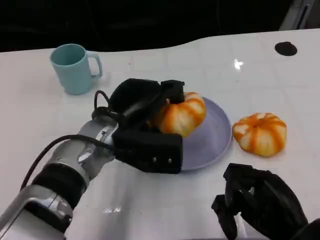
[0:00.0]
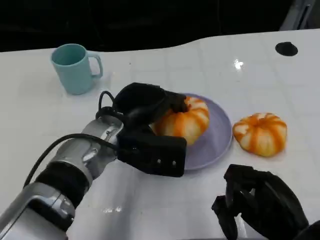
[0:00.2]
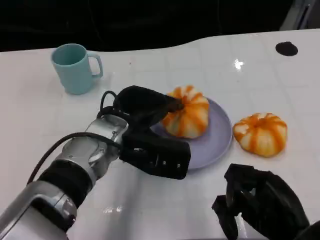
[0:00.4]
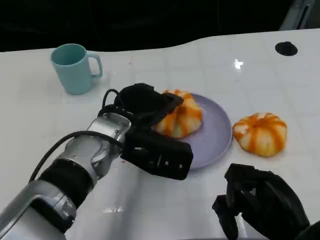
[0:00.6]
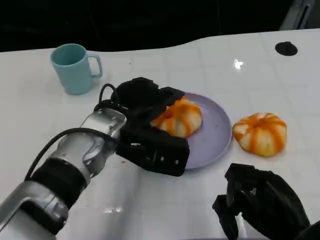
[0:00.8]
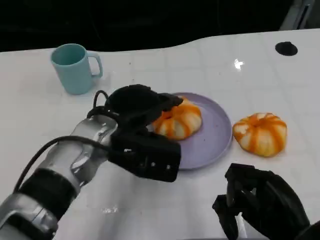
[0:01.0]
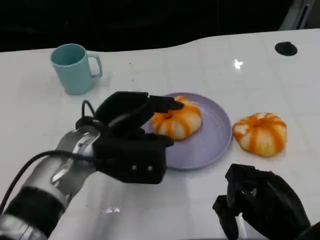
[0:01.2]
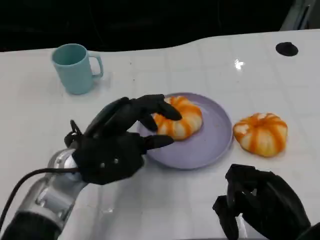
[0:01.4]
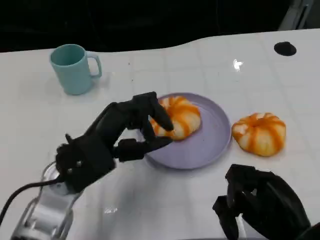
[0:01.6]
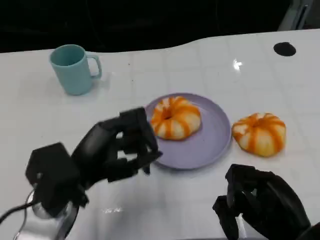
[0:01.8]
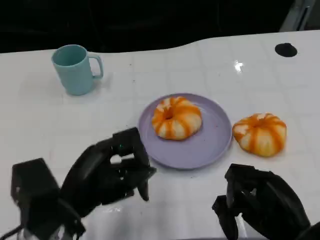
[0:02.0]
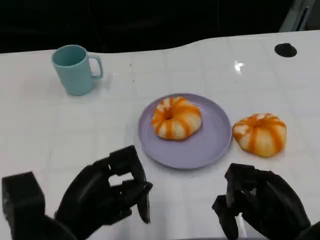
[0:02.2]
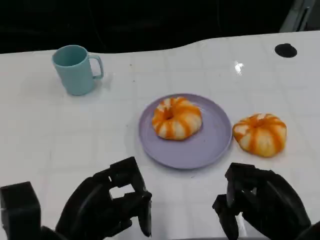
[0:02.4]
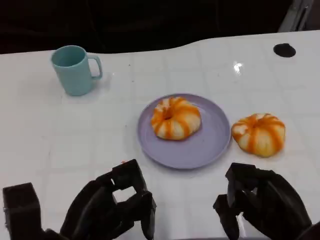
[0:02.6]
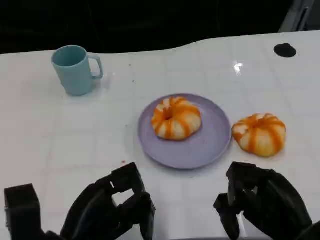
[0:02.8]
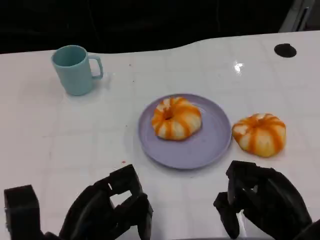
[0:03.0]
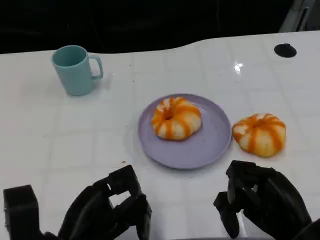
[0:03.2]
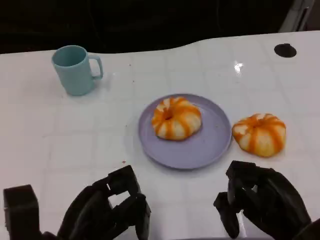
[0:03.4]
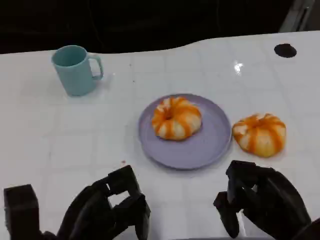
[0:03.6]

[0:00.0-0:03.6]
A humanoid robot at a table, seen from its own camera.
Task of the whole recording: Grasp the bread from the table and place it into the plate.
0:00.0 to 0:01.8: The left hand travels backward and to the left by roughly 10 cm.
0:01.8 to 0:03.6: The left hand goes approximately 5 cm backward.

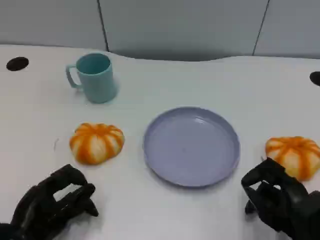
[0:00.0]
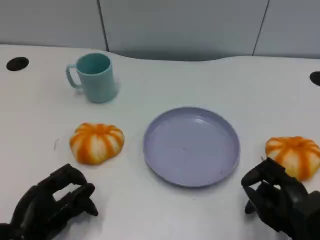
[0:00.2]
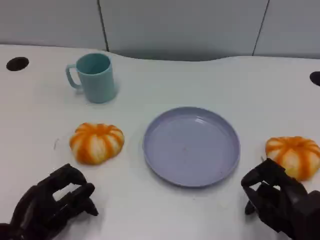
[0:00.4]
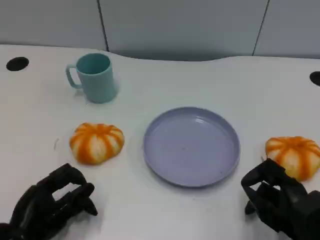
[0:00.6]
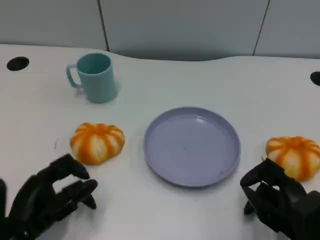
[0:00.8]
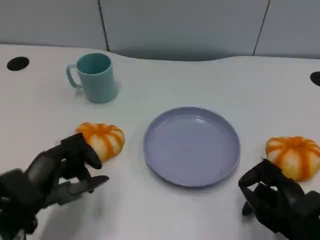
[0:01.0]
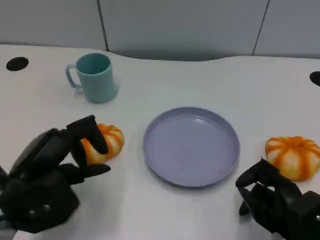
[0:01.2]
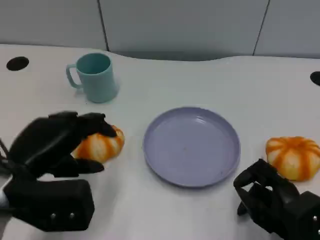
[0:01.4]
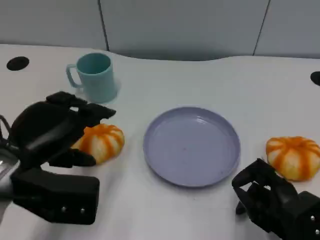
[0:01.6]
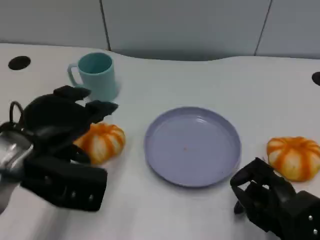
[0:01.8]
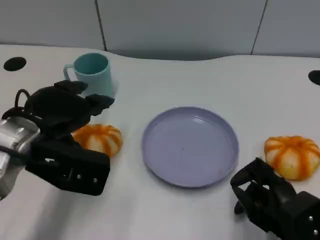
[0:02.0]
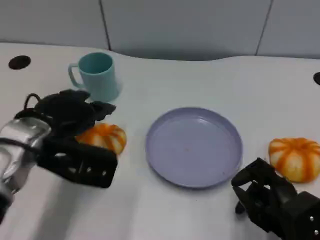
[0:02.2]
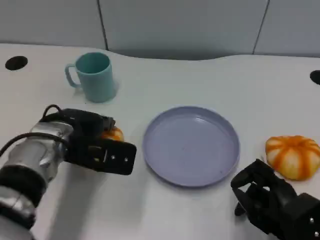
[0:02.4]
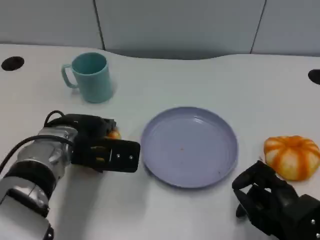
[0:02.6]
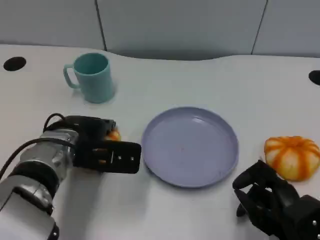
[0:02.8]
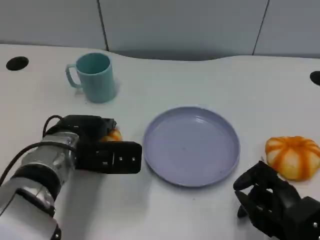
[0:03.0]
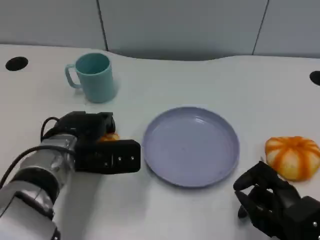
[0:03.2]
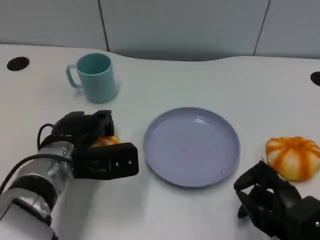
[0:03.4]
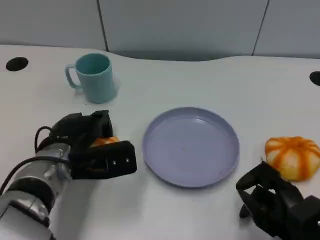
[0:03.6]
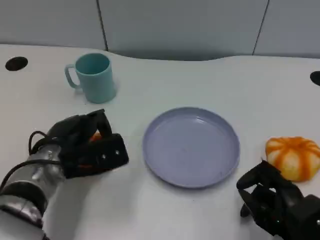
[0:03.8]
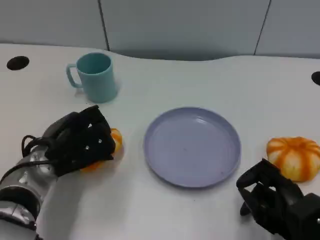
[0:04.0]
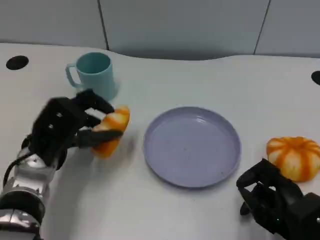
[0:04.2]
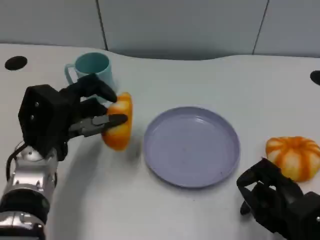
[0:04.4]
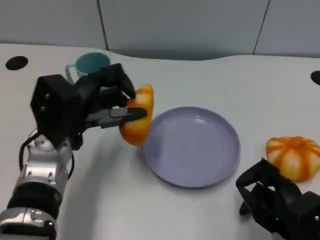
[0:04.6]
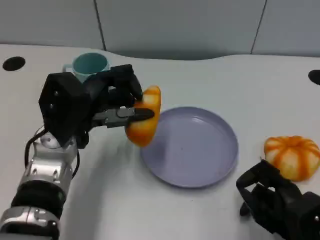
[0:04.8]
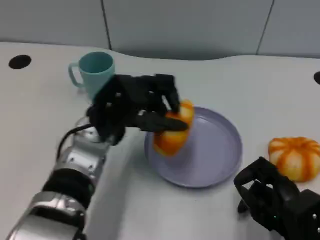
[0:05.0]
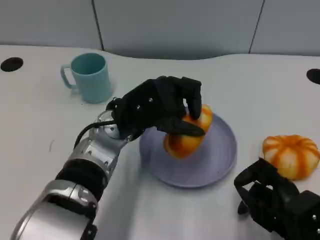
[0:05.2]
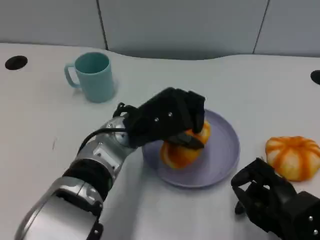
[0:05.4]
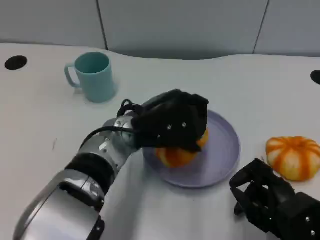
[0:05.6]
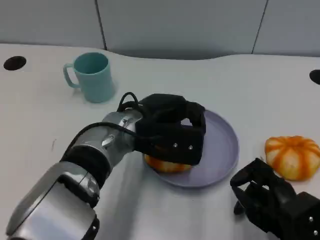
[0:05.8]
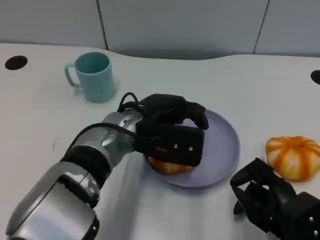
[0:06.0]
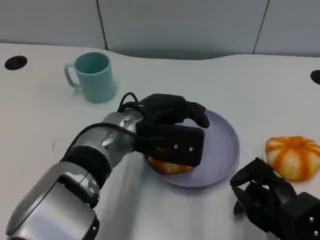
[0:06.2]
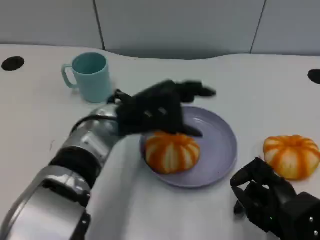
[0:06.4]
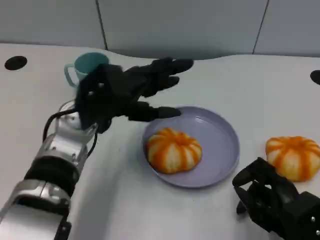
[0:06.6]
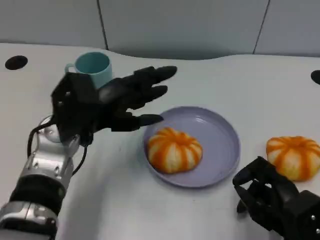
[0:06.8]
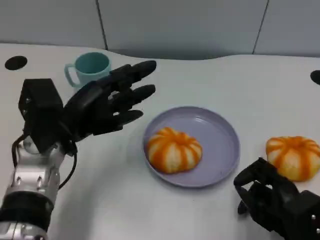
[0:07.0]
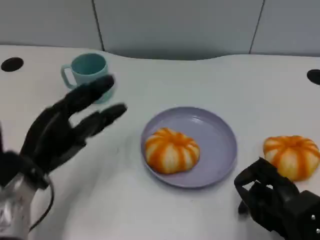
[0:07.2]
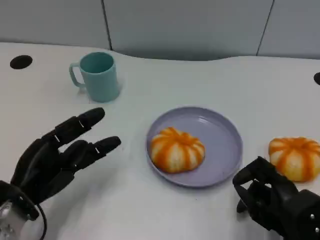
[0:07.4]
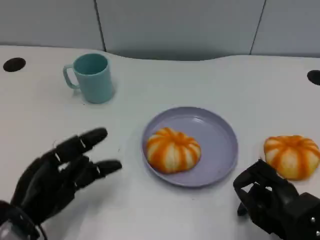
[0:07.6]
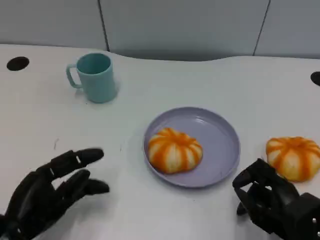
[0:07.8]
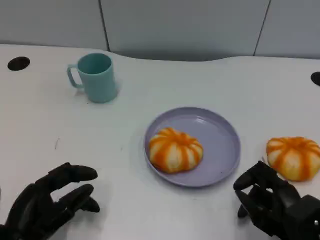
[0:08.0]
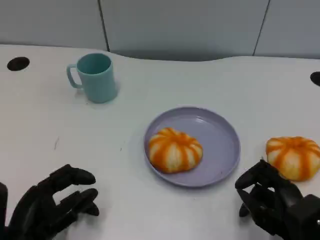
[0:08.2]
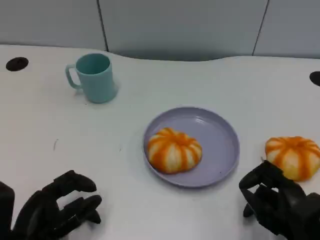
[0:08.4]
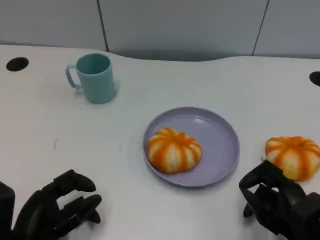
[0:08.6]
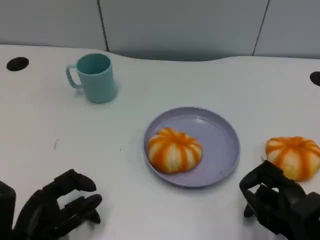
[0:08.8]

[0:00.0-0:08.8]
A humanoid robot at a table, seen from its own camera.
Task of the whole recording: Grasp the bread from the table and place it into the plate.
0:00.0 to 0:01.4: The left hand moves upward, some 10 cm.
0:01.4 to 0:03.0: The left hand heads forward, to the right and downward, covering some 10 cm.
0:04.4 to 0:05.8: The left hand goes roughly 10 cm to the right.
0:05.8 to 0:07.4: The left hand is displaced to the left and backward by approximately 20 cm.
0:07.4 to 0:08.8: The left hand heads backward, covering approximately 5 cm.

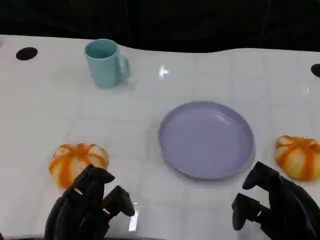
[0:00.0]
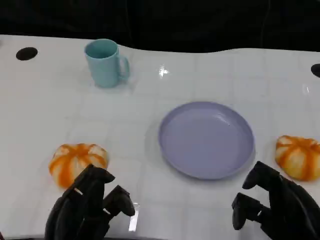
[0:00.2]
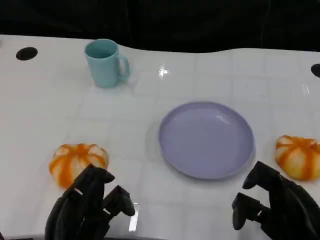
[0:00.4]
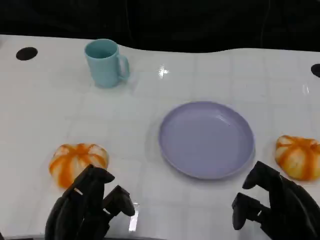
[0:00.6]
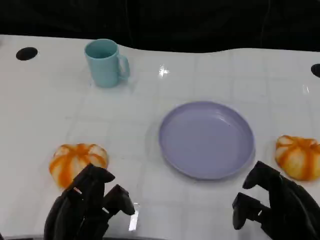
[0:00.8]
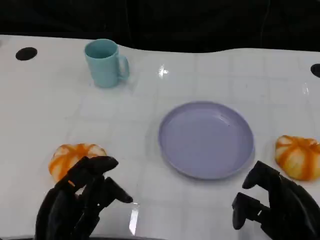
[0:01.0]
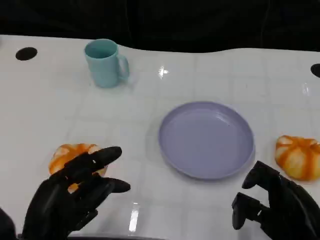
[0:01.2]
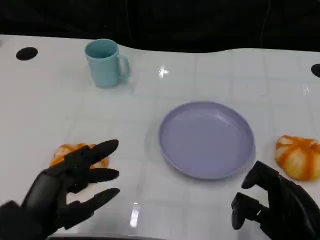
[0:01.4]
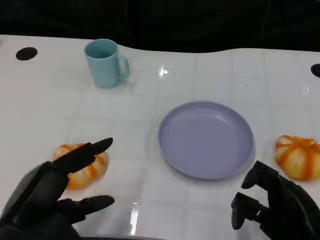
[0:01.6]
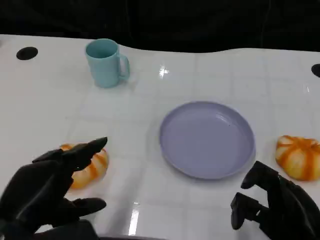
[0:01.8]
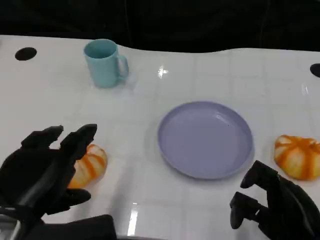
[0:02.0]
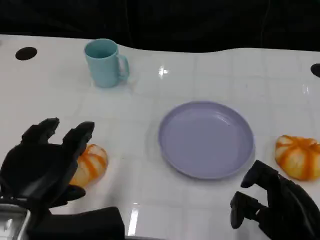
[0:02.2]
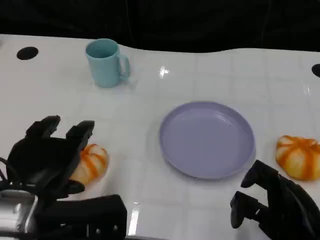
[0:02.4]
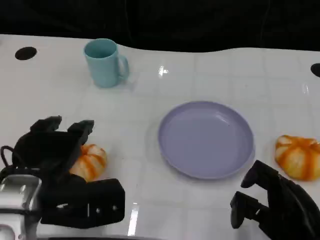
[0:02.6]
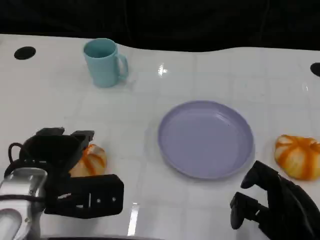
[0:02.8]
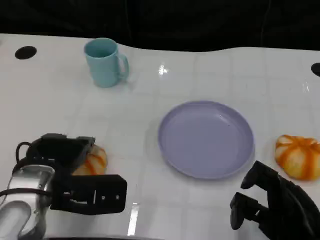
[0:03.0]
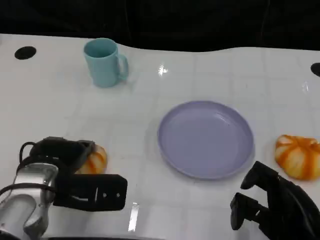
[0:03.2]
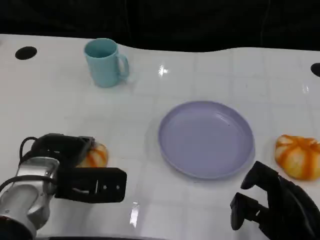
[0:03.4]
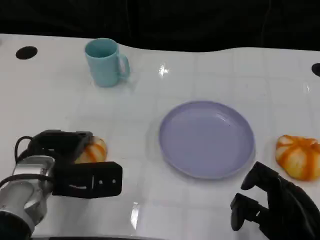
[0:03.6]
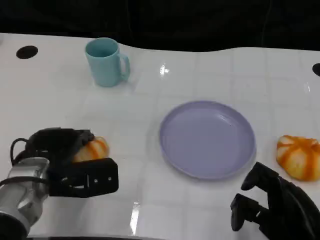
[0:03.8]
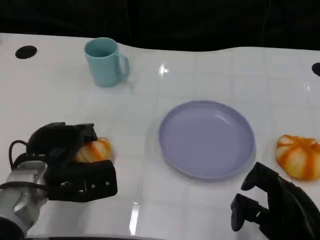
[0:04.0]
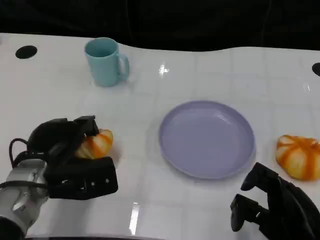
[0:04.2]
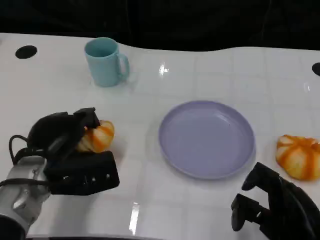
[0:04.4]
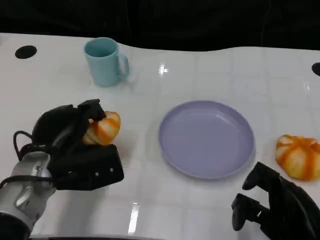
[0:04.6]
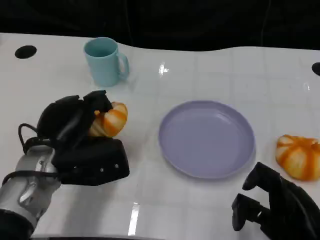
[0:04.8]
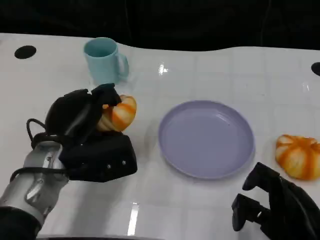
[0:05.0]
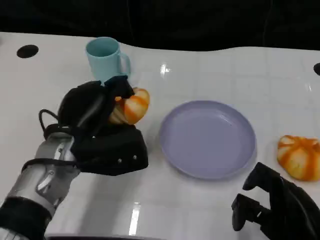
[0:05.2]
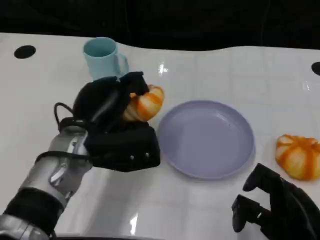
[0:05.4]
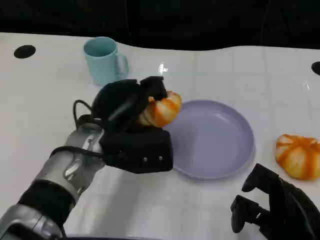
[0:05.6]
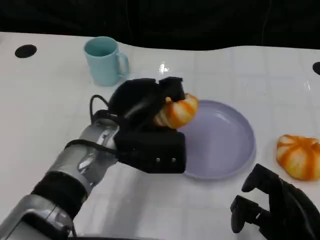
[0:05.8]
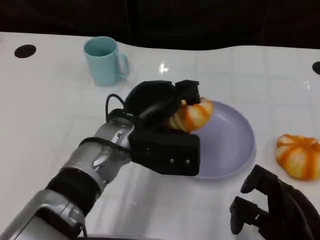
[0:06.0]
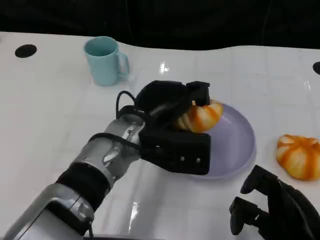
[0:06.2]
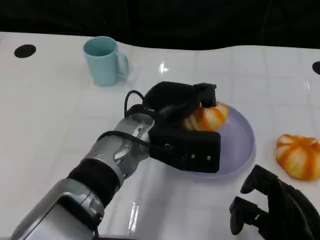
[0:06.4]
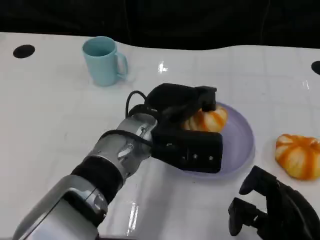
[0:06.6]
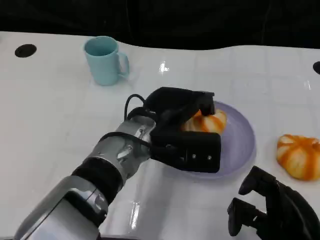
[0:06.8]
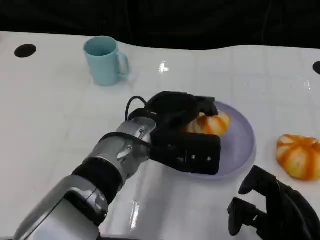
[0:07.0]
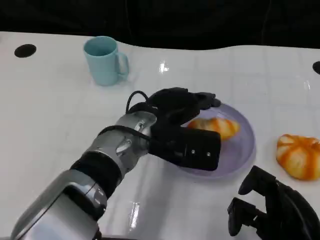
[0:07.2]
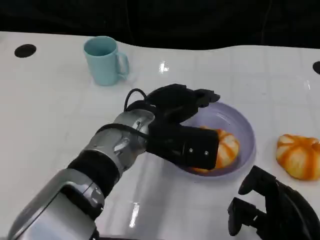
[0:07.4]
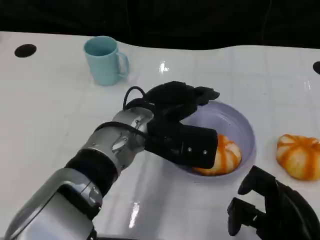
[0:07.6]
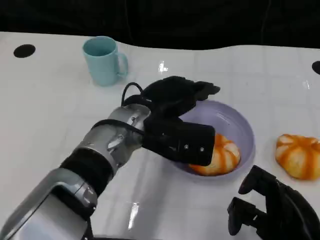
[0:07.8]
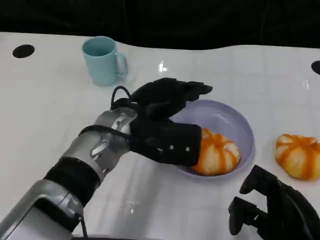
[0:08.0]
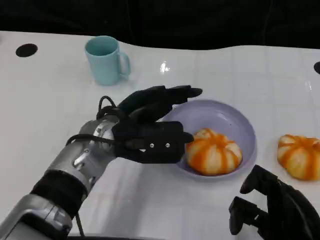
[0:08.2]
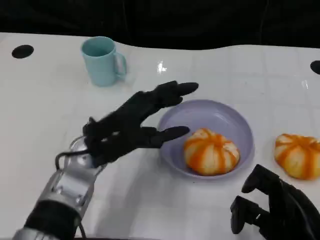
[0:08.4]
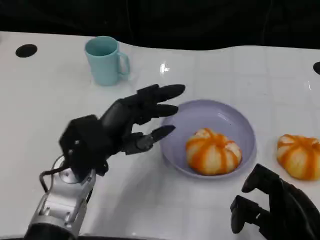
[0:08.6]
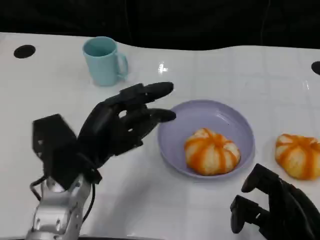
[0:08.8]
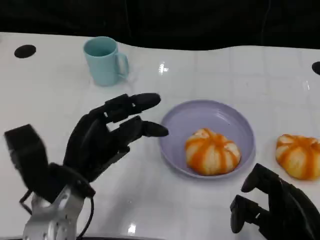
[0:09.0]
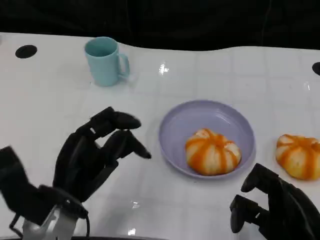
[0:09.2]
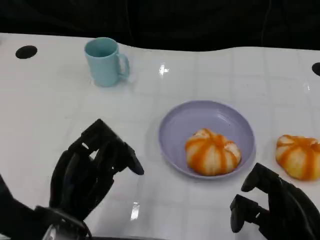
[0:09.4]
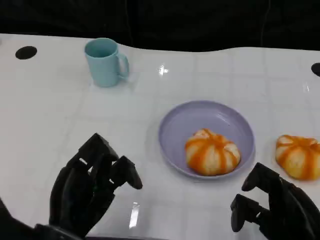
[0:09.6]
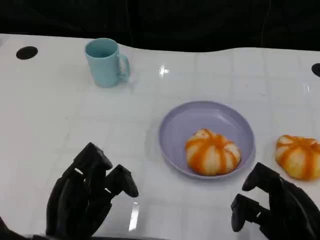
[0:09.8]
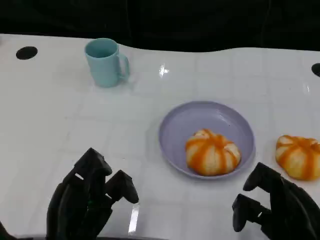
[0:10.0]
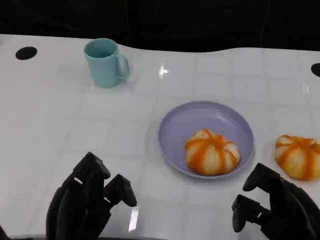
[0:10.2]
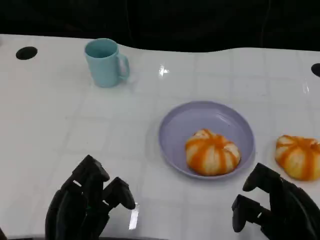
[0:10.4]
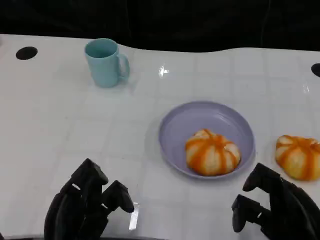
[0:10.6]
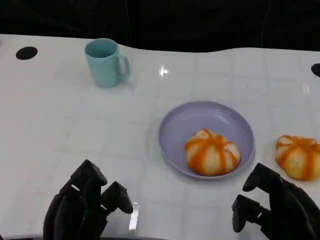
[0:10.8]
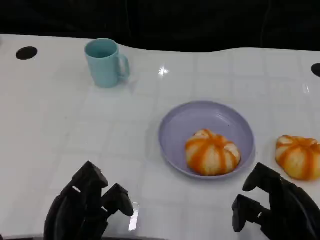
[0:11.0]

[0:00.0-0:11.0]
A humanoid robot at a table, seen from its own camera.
Task of the whole recording: Grasp the bread from the table and place it into the plate.
0:00.0 to 0:01.6: The left hand is displaced upward by roughly 10 cm.
0:01.6 to 0:03.2: The left hand travels forward by approximately 10 cm.
0:04.8 to 0:06.2: The left hand goes roughly 10 cm to the right.
0:06.2 to 0:07.8: The hands move only a little.
0:07.8 to 0:09.4: The left hand goes roughly 20 cm backward, to the left and downward.
0:09.4 to 0:11.0: The left hand ends up approximately 5 cm from where it was.
